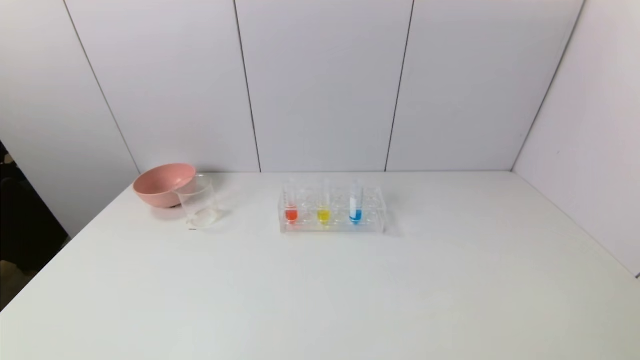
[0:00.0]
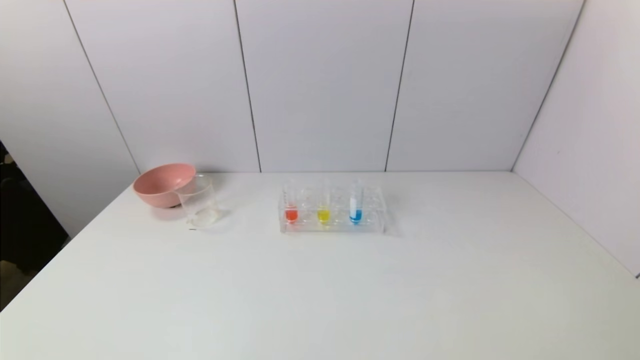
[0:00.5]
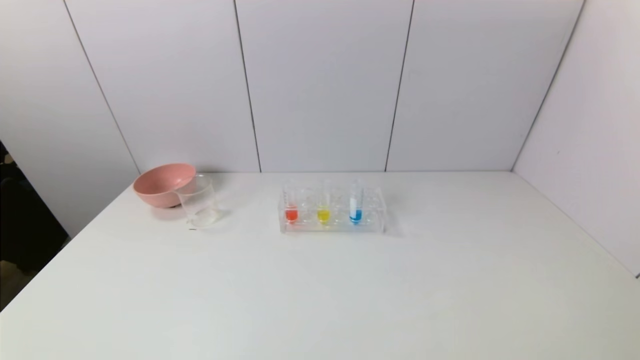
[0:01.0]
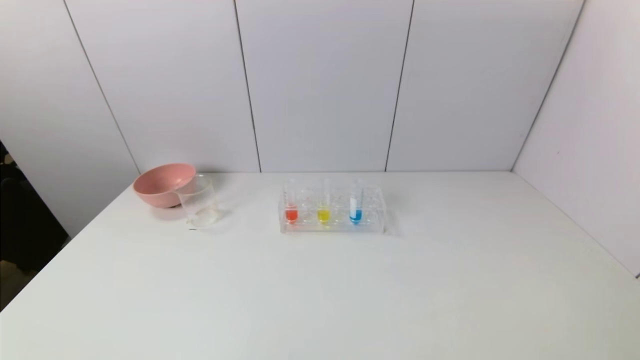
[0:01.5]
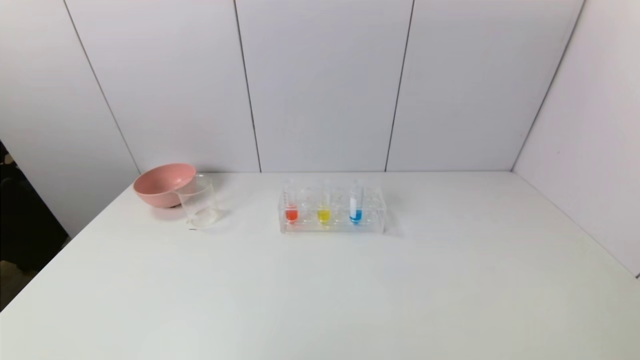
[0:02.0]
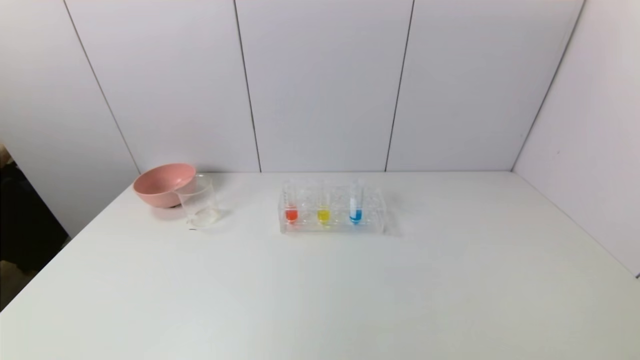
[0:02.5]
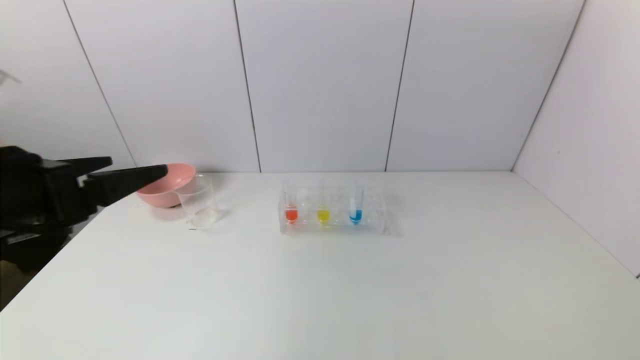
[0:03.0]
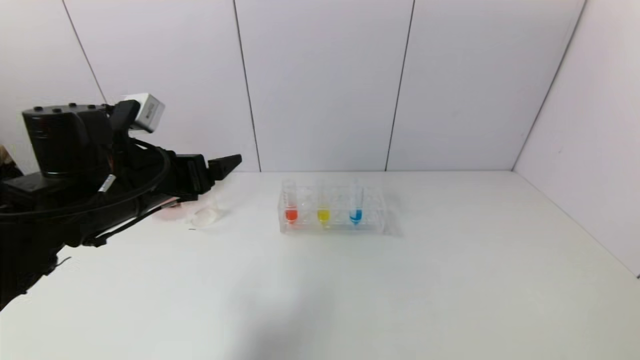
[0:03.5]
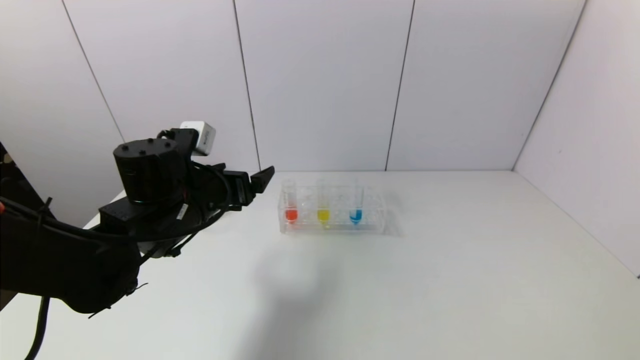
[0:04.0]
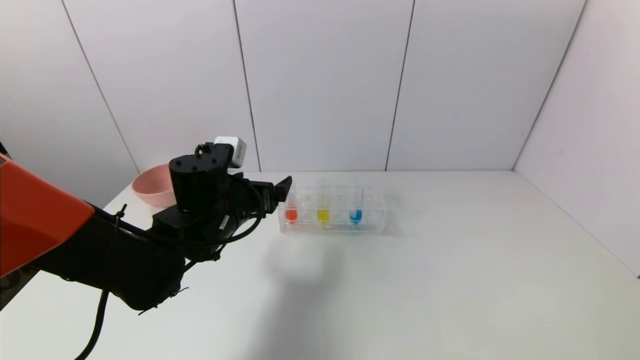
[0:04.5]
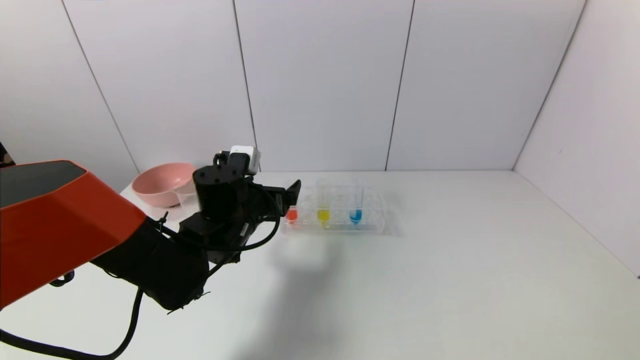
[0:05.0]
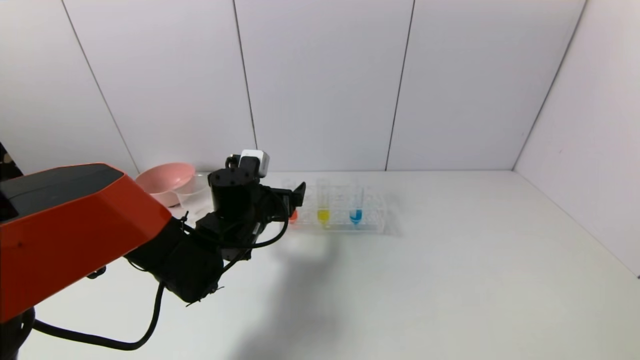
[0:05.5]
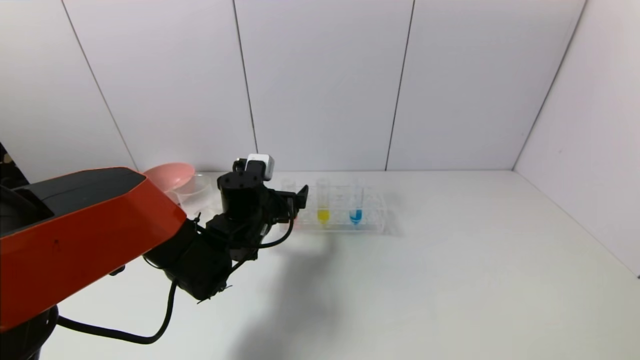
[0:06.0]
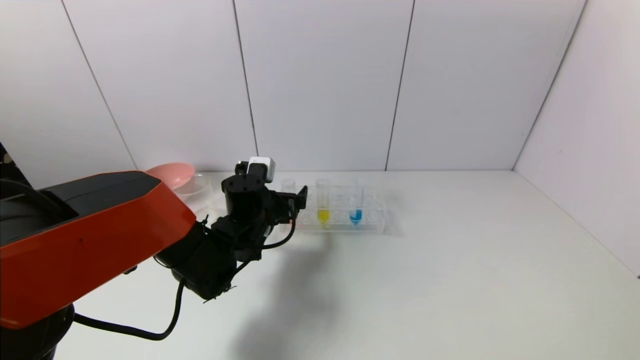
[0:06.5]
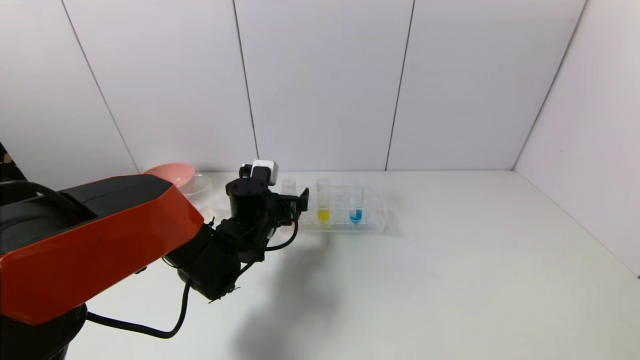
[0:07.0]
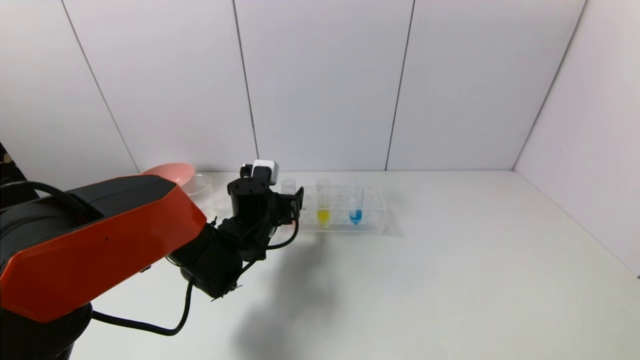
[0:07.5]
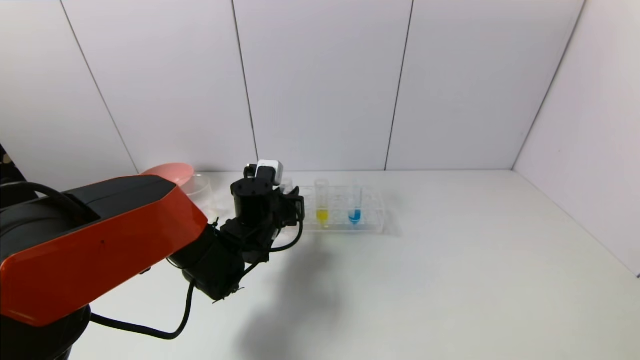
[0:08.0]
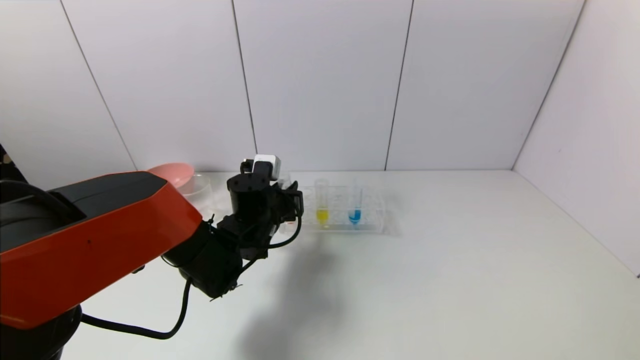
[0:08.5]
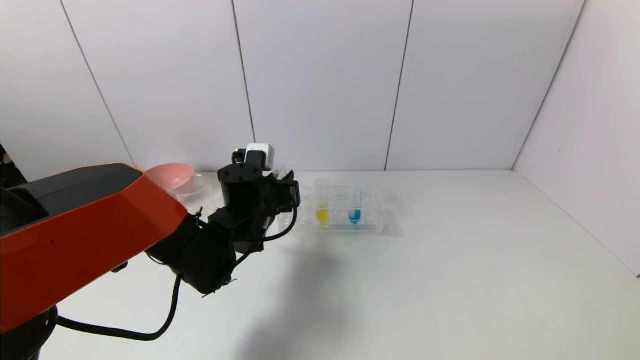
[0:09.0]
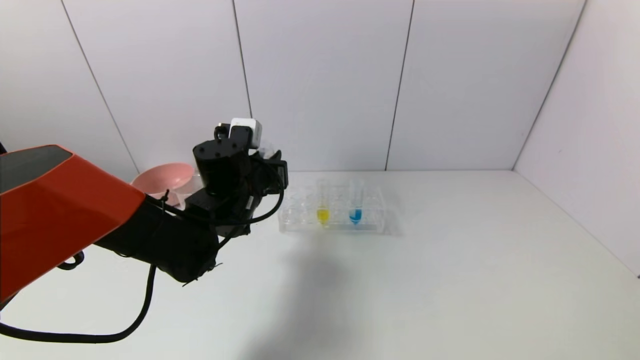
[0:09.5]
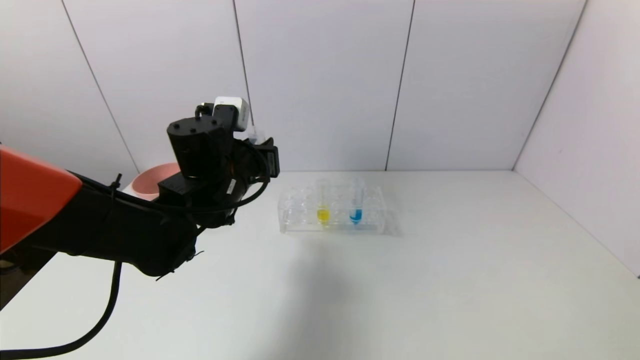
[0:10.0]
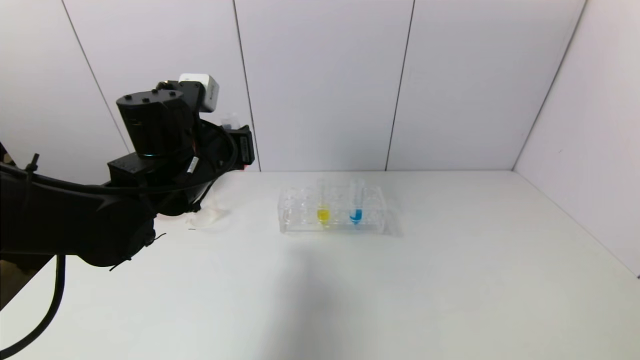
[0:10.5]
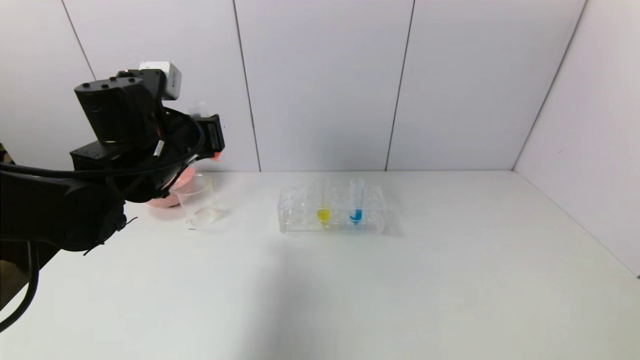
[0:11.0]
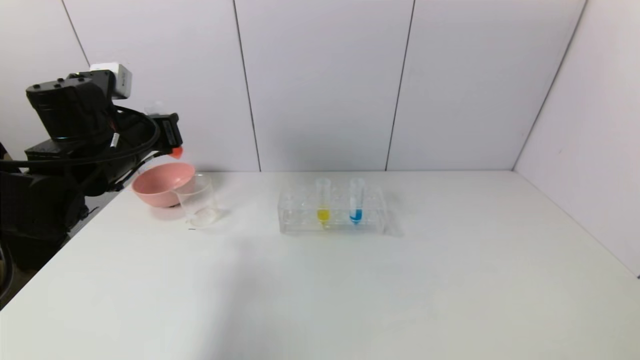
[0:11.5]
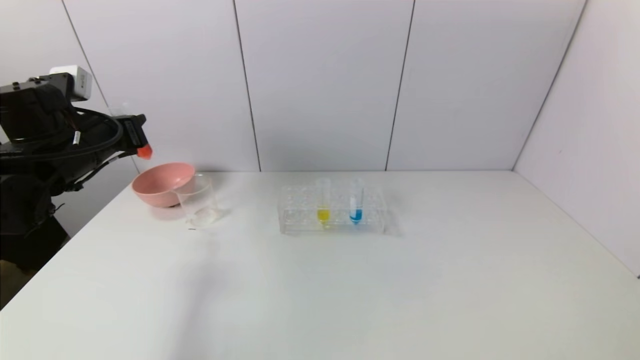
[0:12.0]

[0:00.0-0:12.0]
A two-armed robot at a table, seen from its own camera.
Task of the whole recording: pick up the test tube with yellow pigment and the test tube with red pigment by grippers and pour them into the beaker.
Step, 0:00.0 to 0:08.0: Grasp the red reagent with the left gripper.
0:02.0 to 0:04.0: The left gripper heads forward, covering some 35 cm.
0:04.0 to 0:06.0: The left gripper heads downward, to the right and forward, covering approximately 10 cm.
0:06.0 to 0:08.0: The left gripper closes its fingers.
0:08.0 to 0:10.0: The left gripper shifts roughly 10 cm upward.
0:10.0 to 0:12.0: The left gripper goes some 20 cm to the left.

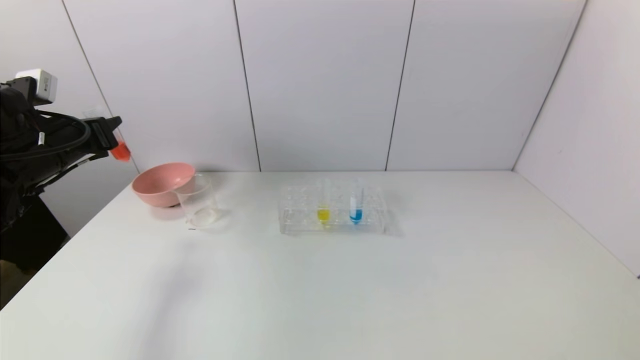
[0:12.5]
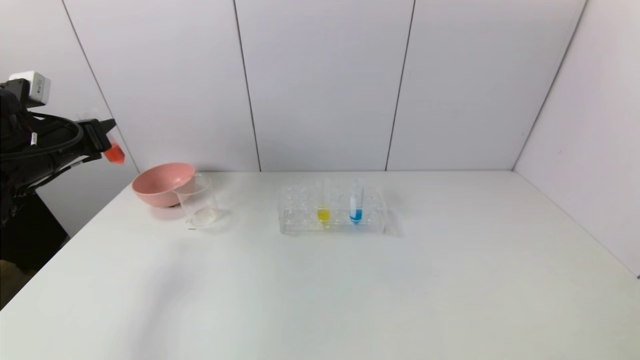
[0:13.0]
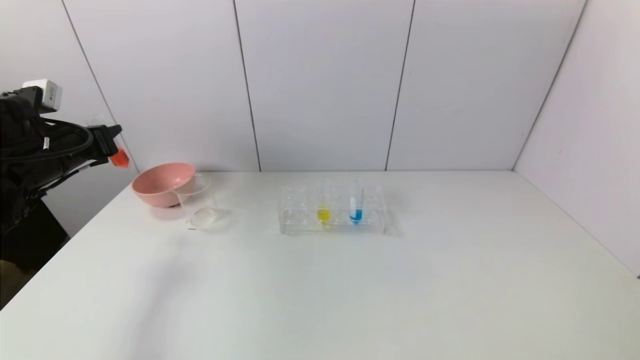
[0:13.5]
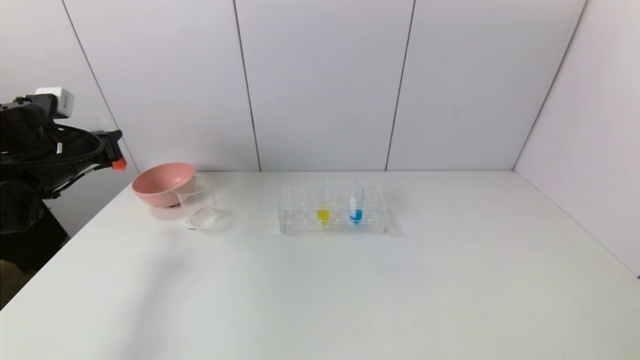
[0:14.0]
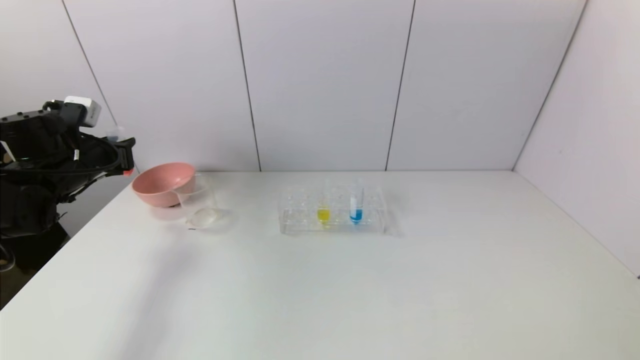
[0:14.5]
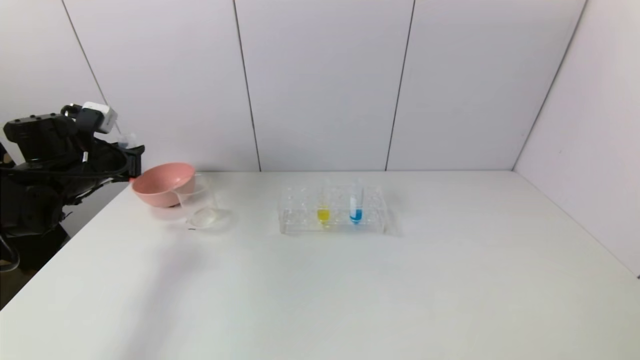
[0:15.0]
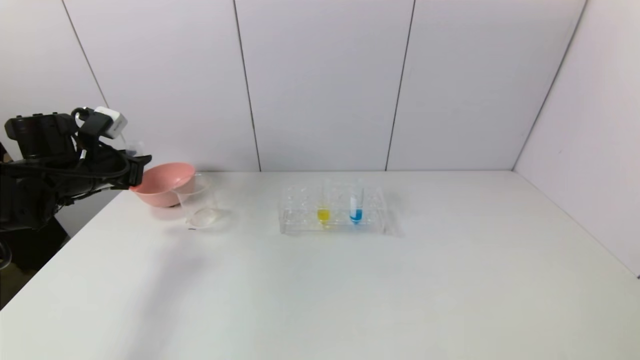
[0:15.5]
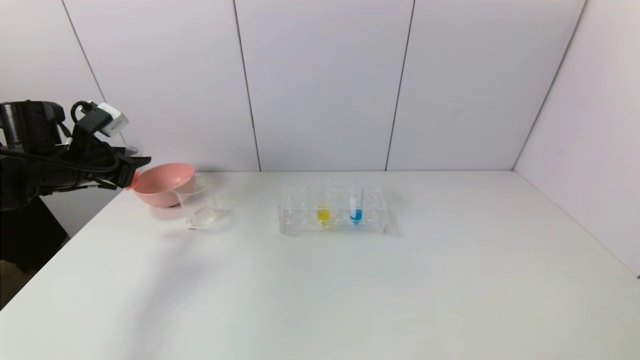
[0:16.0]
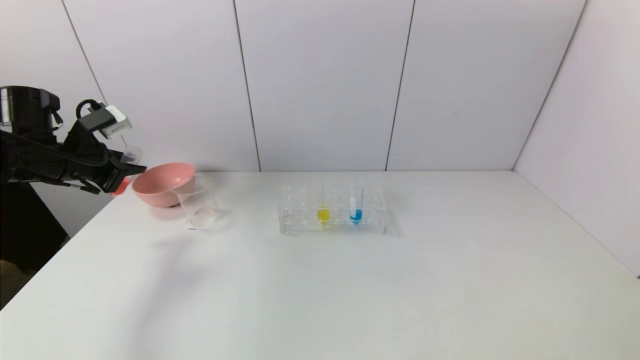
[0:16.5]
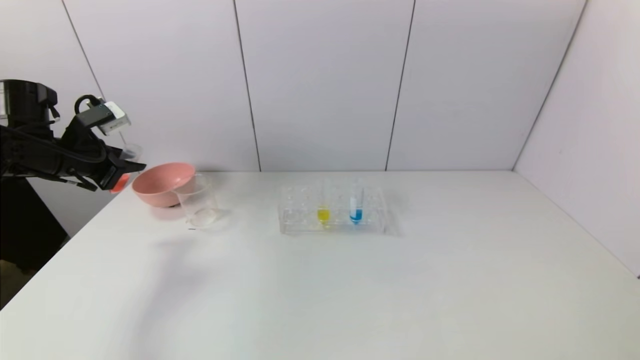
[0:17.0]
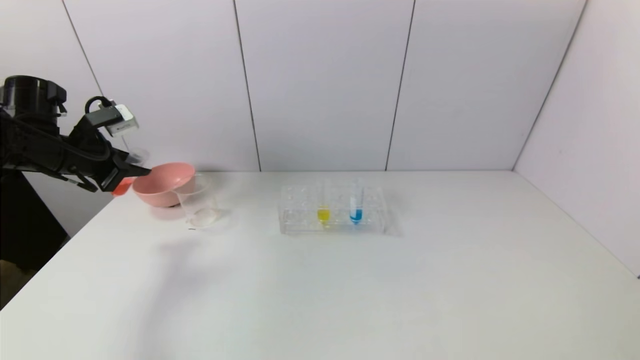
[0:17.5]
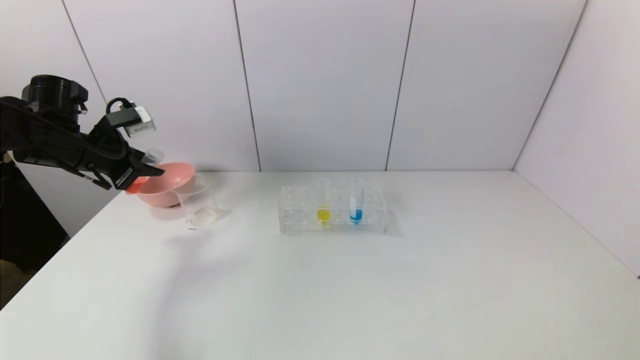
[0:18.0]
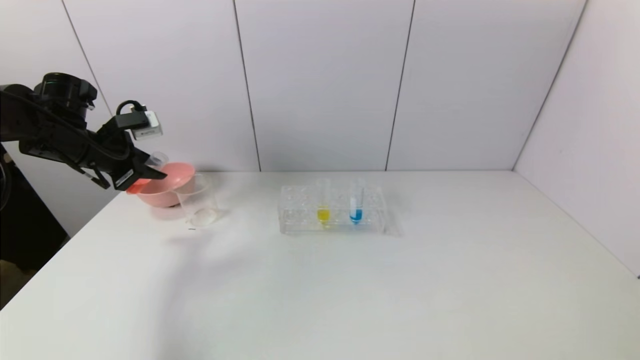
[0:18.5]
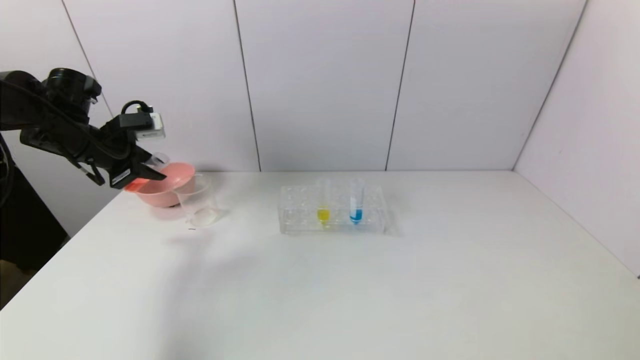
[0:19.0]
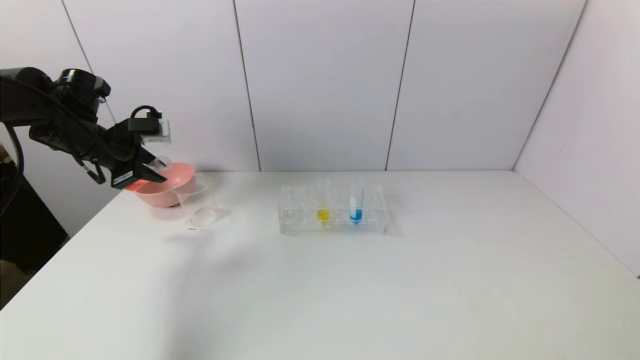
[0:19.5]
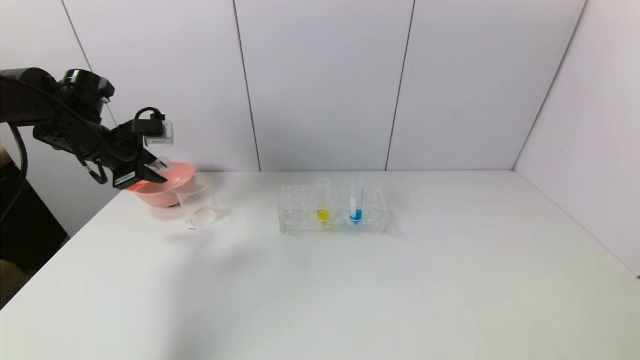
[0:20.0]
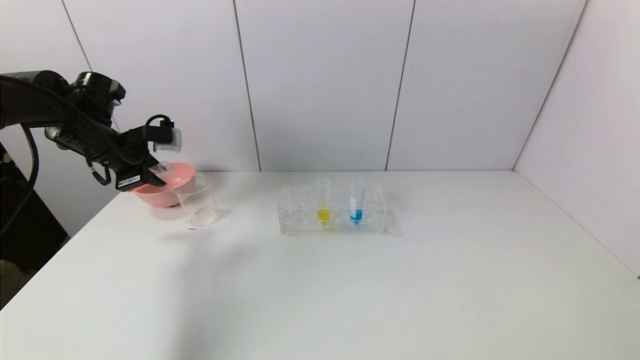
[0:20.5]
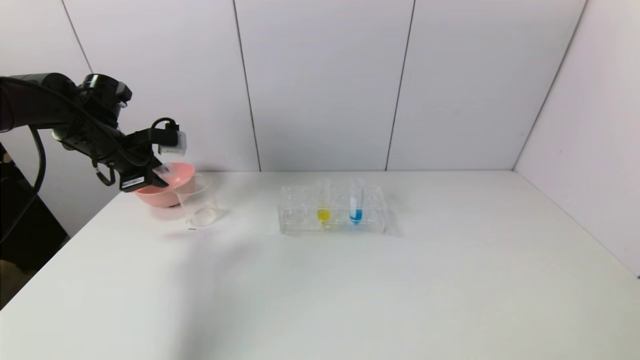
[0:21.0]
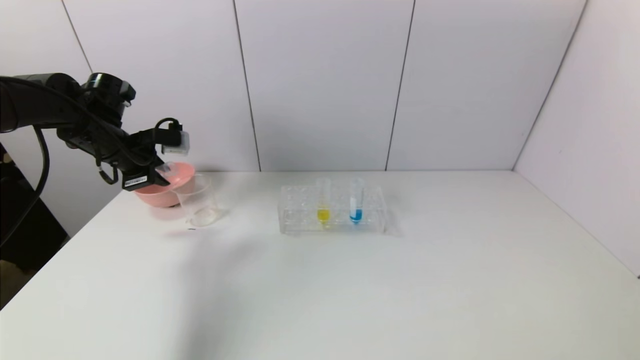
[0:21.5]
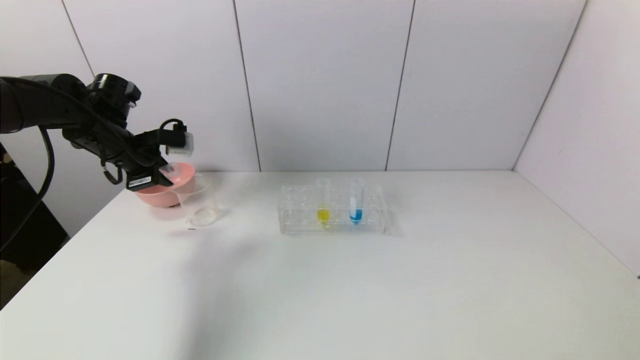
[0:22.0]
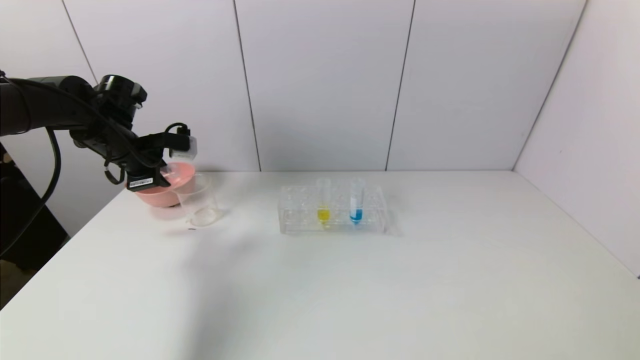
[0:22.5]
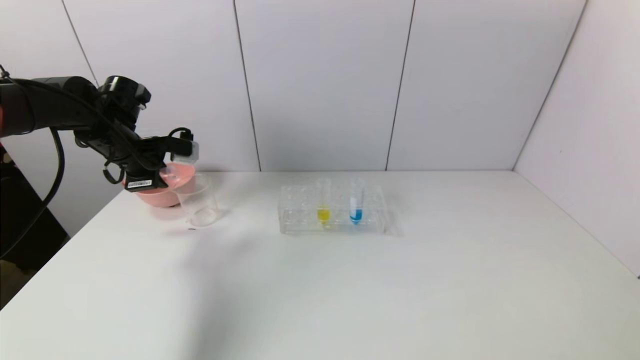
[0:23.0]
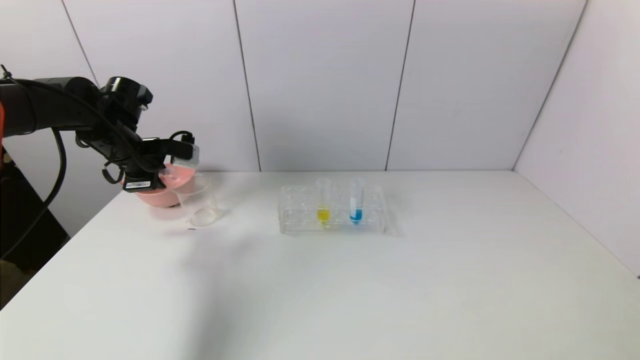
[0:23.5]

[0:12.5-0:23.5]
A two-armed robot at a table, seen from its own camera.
Task of the whole recording: pick up the test tube with yellow pigment and the test tube with red pigment by grippers and pour them into the beaker.
0:12.5 to 0:14.5: The left gripper ends up about 5 cm from where it was.
0:20.0 to 0:21.5: The grippers stay close to where they were, moving slightly.
0:21.5 to 0:23.5: The grippers make only small movements.
